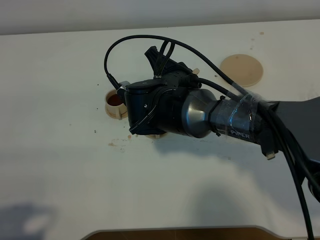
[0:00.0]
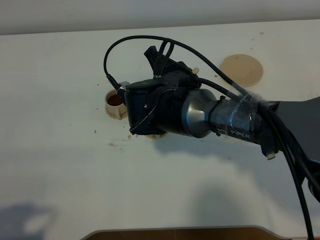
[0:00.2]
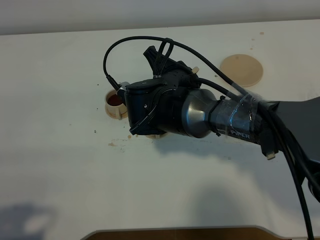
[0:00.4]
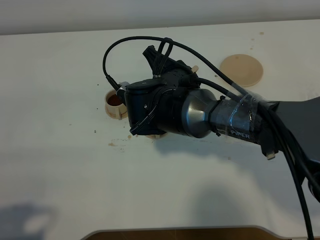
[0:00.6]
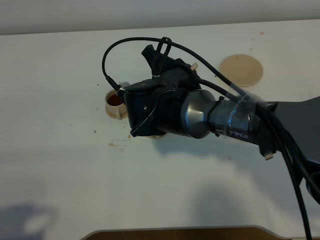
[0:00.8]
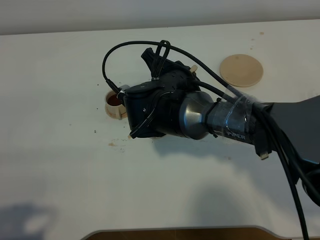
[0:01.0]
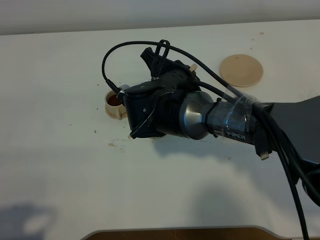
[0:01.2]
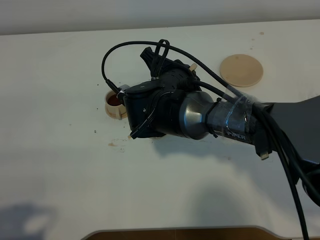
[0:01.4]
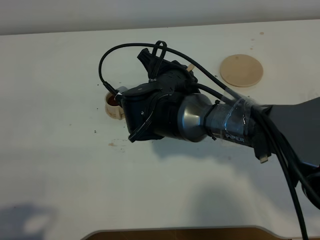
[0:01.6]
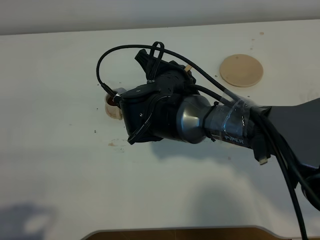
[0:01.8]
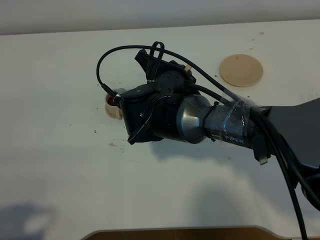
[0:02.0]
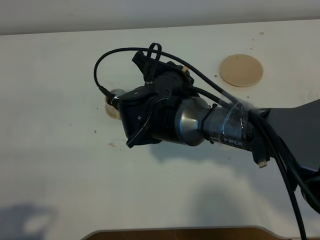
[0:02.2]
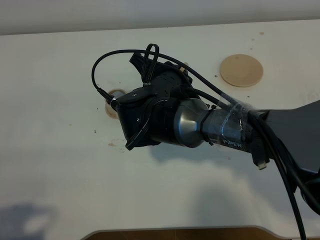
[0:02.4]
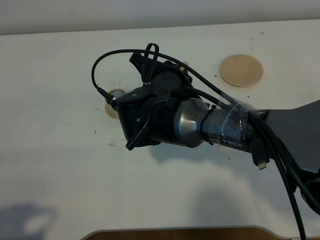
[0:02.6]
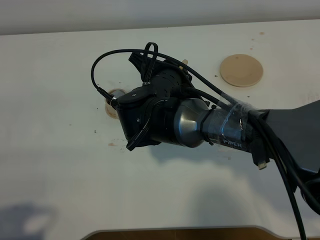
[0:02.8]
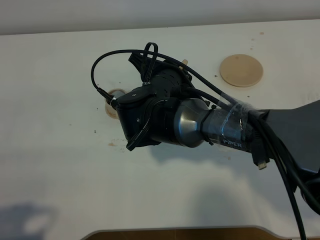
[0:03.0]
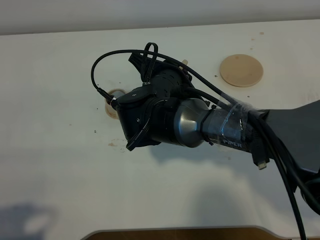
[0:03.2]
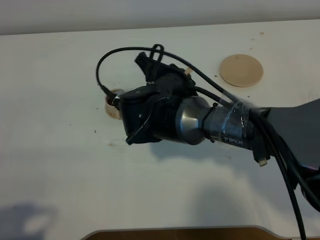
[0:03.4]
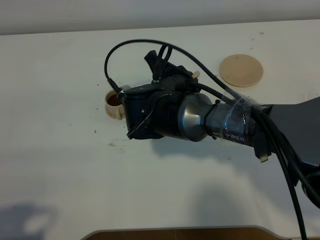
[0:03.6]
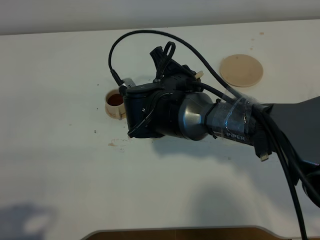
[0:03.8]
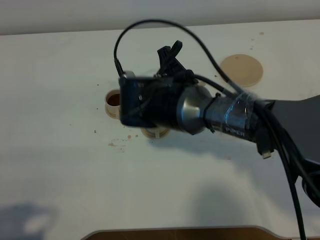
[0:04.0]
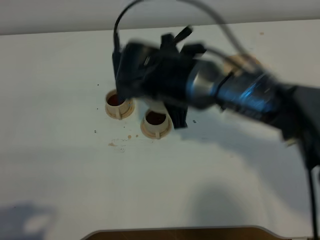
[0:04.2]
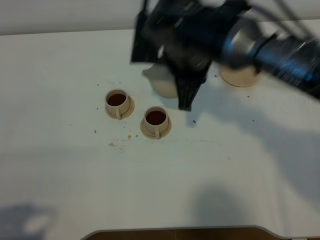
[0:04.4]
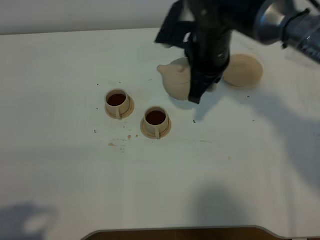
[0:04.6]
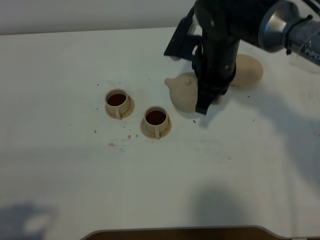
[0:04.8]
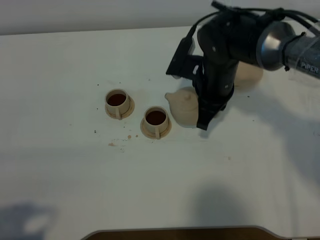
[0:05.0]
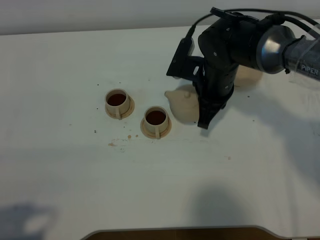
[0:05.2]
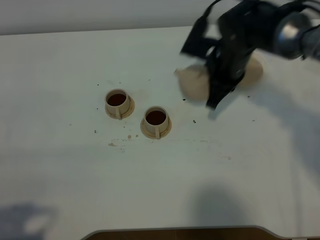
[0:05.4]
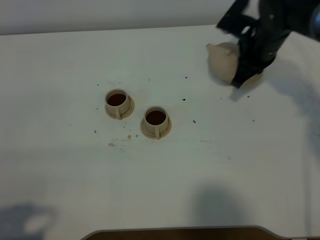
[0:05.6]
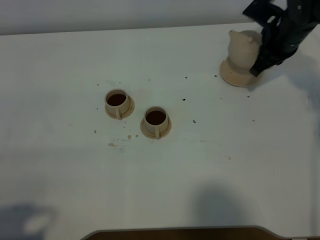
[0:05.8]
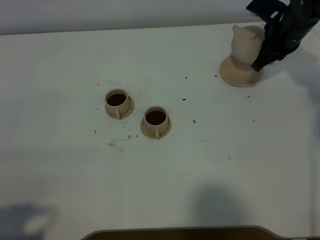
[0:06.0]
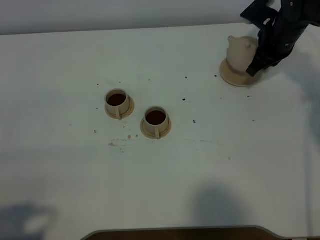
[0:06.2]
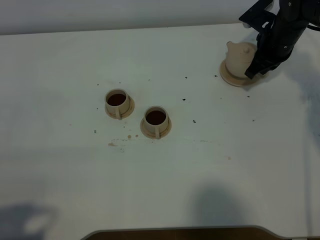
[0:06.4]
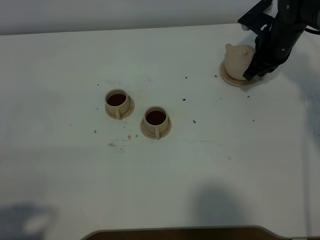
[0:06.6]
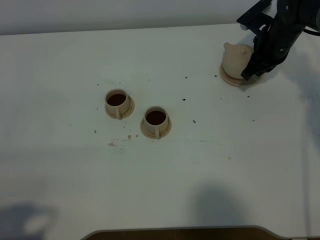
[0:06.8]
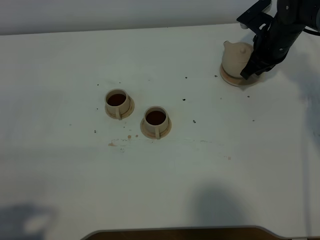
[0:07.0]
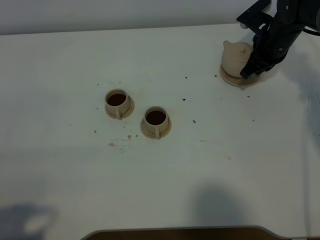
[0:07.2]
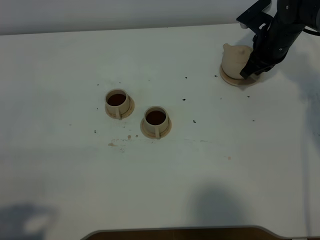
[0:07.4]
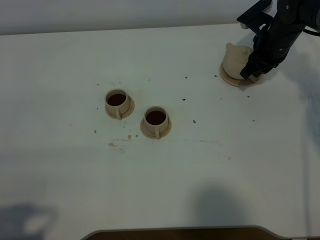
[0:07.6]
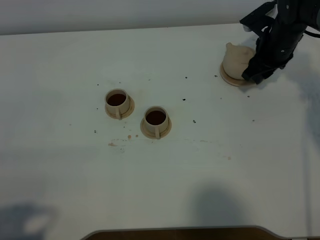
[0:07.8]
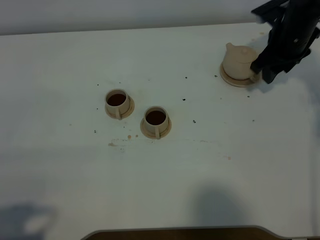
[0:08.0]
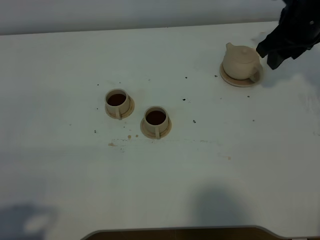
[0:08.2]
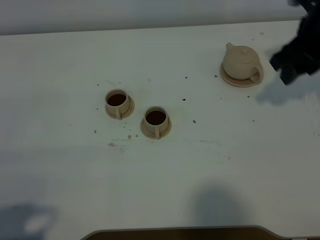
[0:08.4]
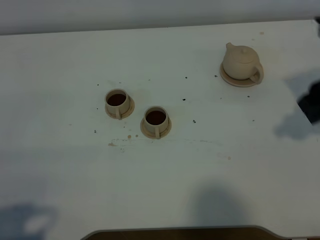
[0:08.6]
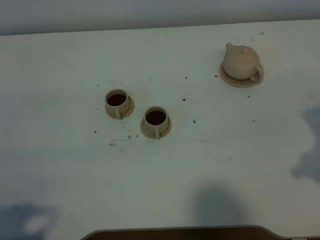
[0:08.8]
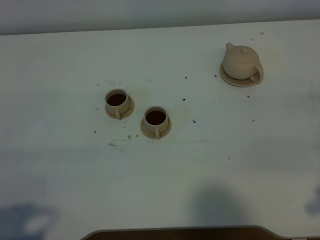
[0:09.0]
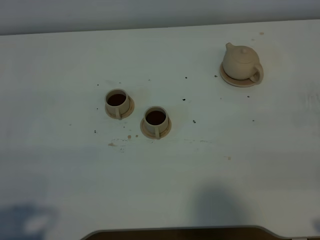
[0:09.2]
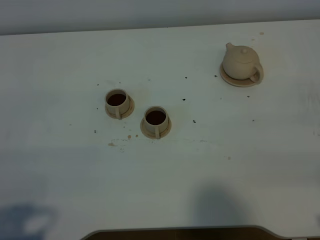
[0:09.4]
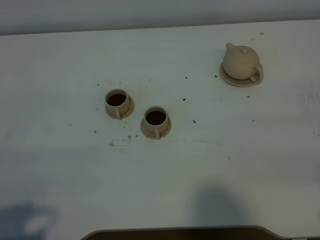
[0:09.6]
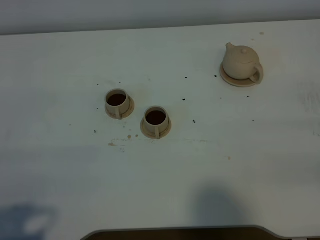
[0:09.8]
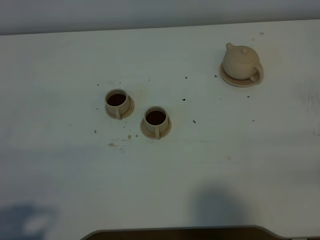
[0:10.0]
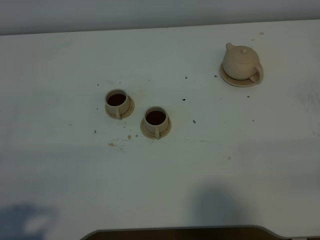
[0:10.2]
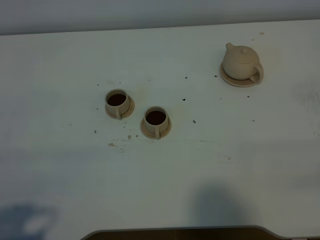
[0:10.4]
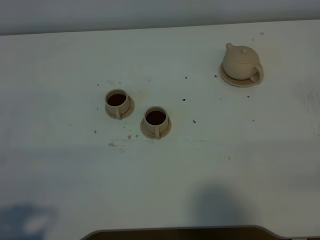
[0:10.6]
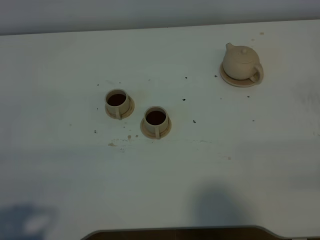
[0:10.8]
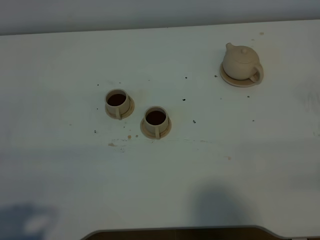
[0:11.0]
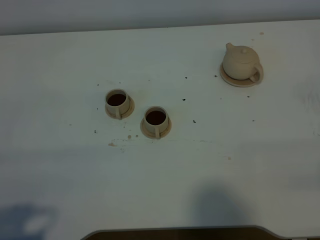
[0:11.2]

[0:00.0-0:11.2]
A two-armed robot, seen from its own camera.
Task of the whole recording: grasp the brown teapot and pour the tea into the two brown teacups one by one, put the brown teapot back in its original place.
Step, 0:00.0 to 0:04.2: Pour tea into the teacup with the right gripper.
0:00.0 to 0:03.2: The grippers stay close to where they were, moving slightly.
0:03.2 to 0:04.8: The right gripper travels to the right and forward by about 10 cm.
0:04.8 to 0:06.4: The right gripper travels to the right and forward by roughly 20 cm.
0:06.4 to 0:08.0: The right gripper heads upward, covering roughly 5 cm, and opens its fingers.
0:08.0 to 0:09.6: The right gripper moves backward, roughly 35 cm.

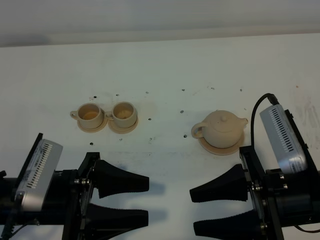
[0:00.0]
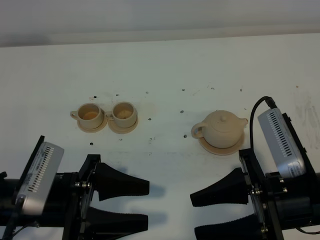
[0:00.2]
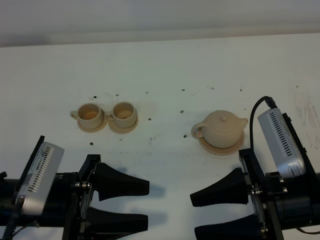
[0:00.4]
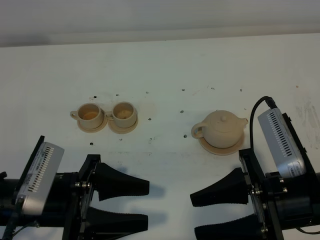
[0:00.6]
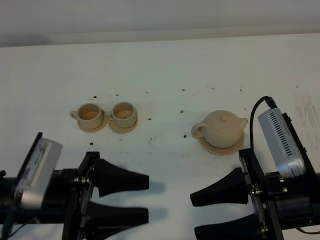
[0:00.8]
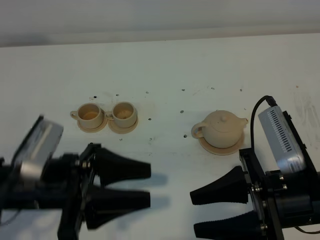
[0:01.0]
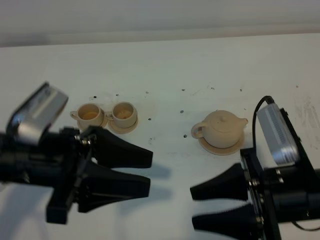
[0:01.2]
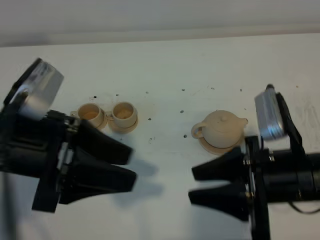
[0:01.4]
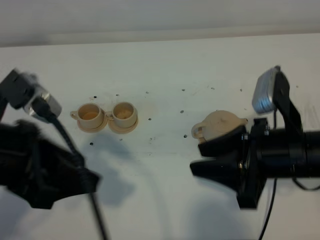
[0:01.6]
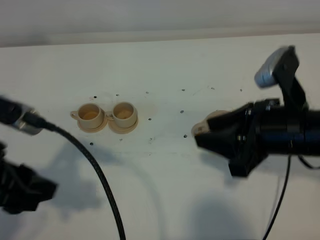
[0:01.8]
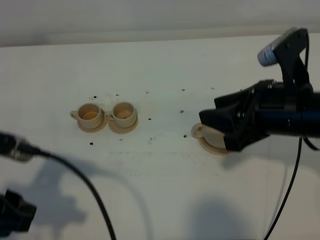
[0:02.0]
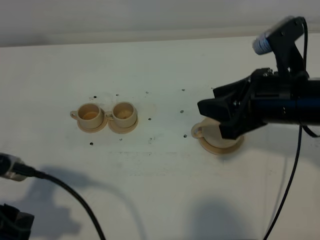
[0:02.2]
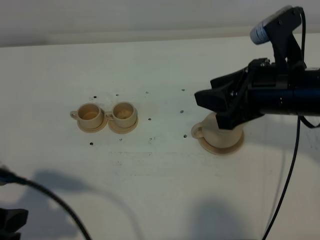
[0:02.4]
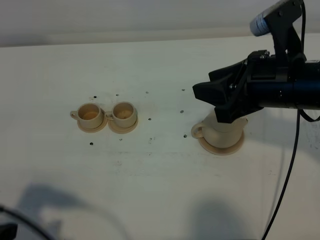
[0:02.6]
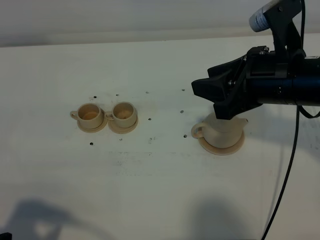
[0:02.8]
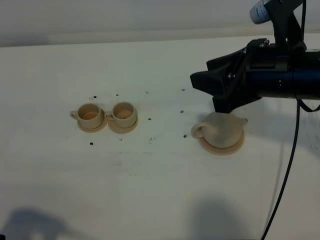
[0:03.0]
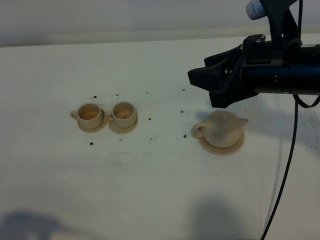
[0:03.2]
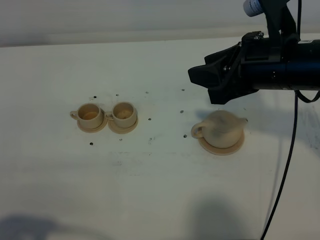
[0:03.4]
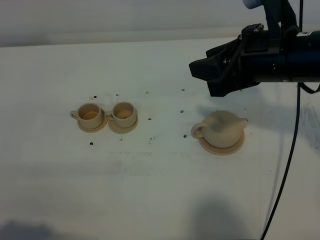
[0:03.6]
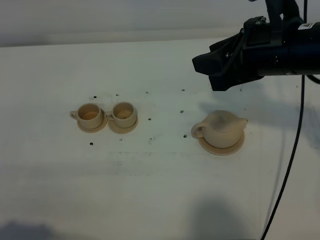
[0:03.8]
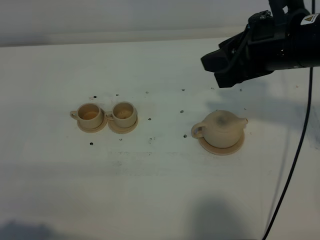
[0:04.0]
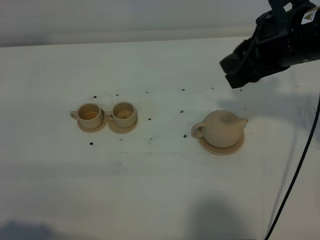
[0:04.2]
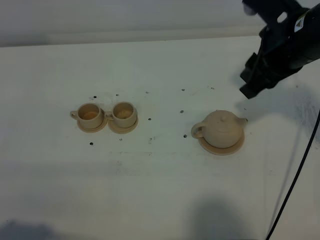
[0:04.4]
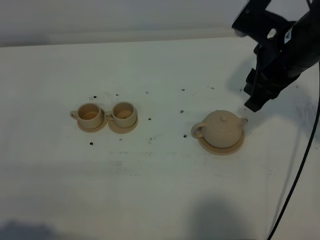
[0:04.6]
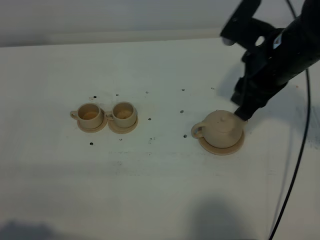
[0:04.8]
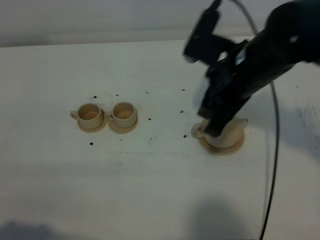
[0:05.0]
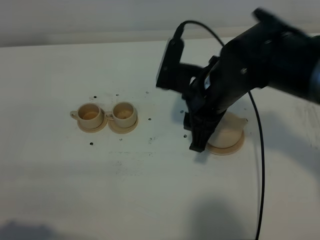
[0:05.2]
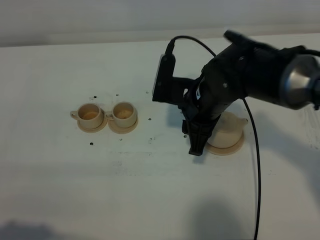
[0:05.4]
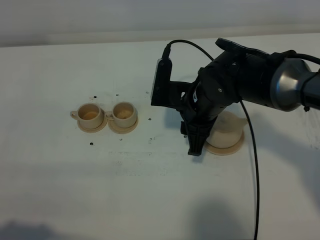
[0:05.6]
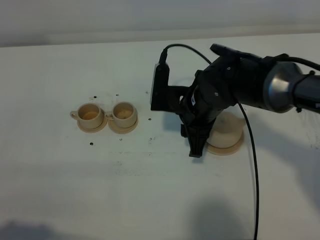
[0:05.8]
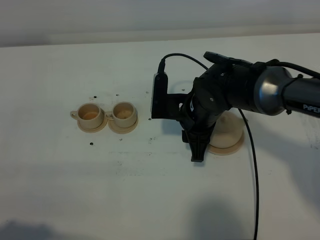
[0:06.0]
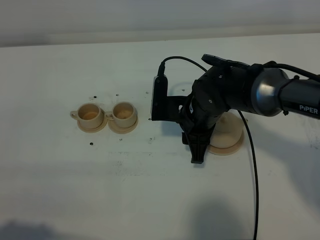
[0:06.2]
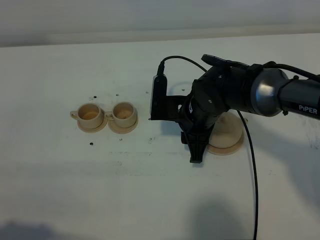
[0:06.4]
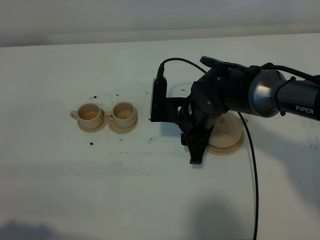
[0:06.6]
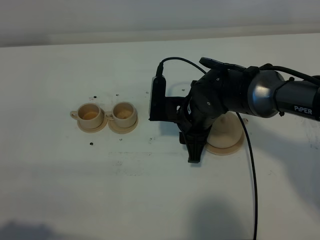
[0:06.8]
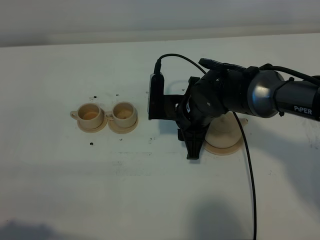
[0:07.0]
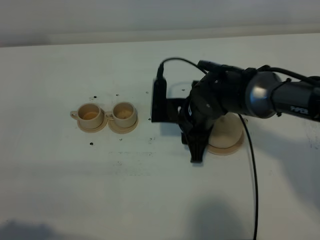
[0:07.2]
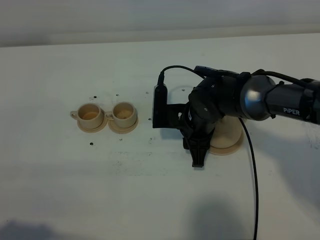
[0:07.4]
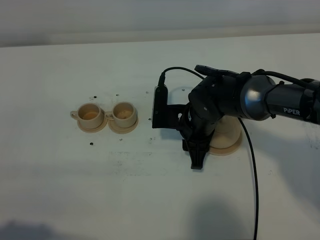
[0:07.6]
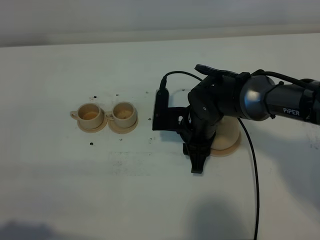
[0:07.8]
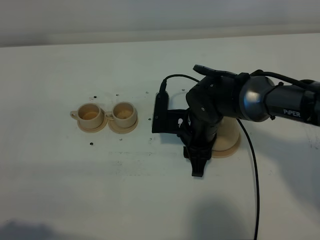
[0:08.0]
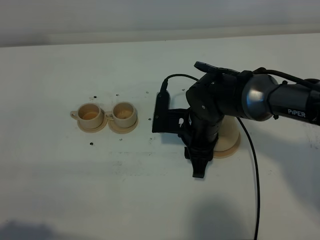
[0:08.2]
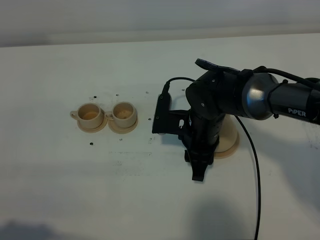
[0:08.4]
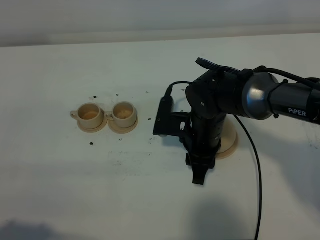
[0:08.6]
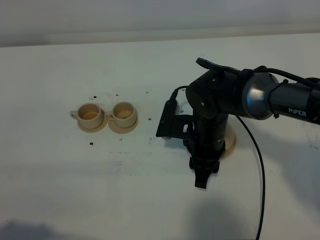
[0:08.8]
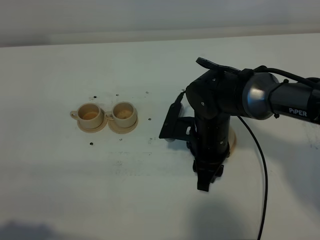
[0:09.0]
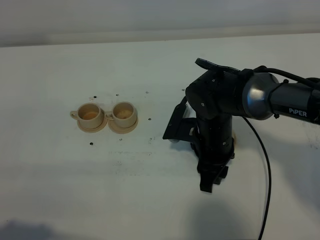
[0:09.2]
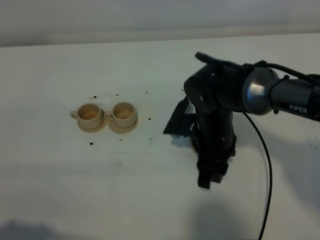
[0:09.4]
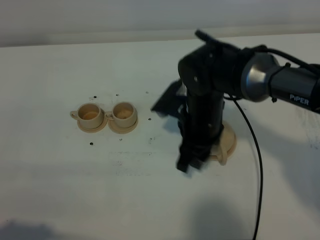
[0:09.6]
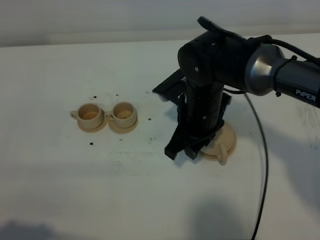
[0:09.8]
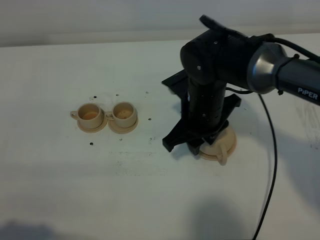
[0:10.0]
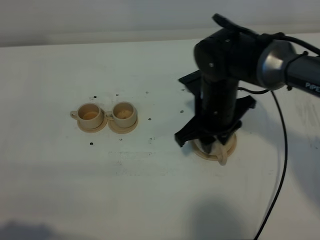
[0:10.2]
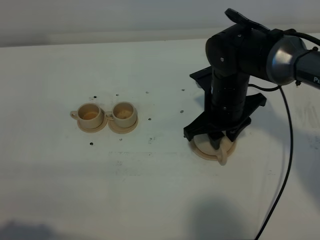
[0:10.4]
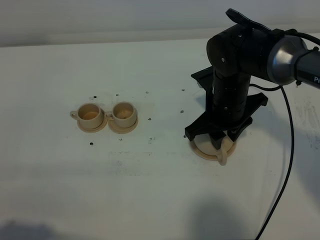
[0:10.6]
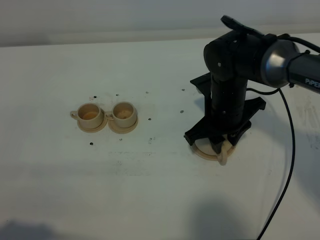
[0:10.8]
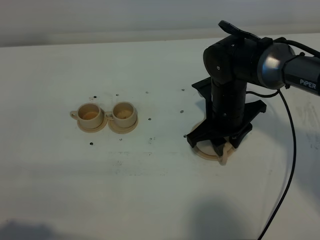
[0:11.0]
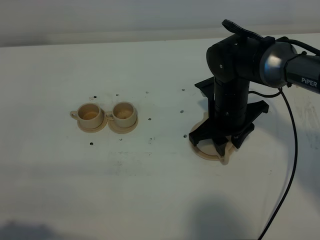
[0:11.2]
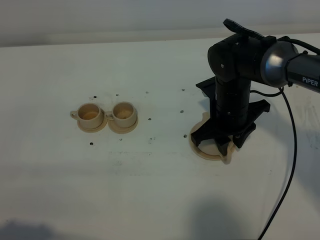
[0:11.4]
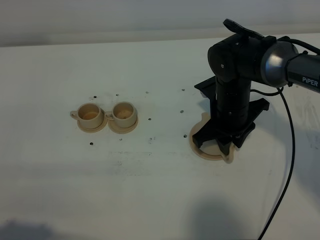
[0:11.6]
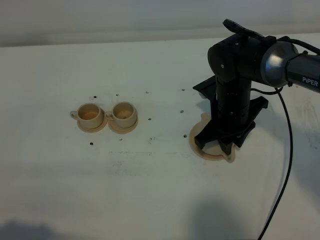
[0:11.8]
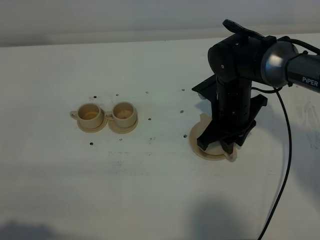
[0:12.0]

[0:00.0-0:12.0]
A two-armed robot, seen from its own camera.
Task of the whole recording: grasp the brown teapot and pour the tea into the two brown teacups one by one, put the brown teapot back in its original place.
0:00.0 to 0:01.6: The left gripper moves upward, some 10 cm; the right gripper ends up roughly 5 cm from where it was.
0:01.6 to 0:03.0: The left gripper heads backward and to the left, covering about 15 cm, while the right gripper travels forward and upward by approximately 10 cm.
0:03.0 to 0:04.4: The right gripper is displaced forward by approximately 5 cm.
0:04.4 to 0:06.0: The right gripper is displaced downward and to the left by some 20 cm.
0:06.0 to 0:07.6: The grippers make only small movements.
0:09.0 to 0:10.4: The right gripper moves about 5 cm.
0:10.4 to 0:12.0: The grippers move only a little.
